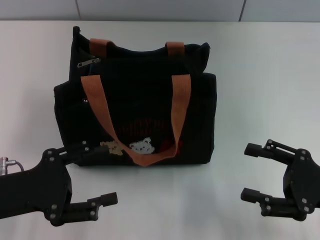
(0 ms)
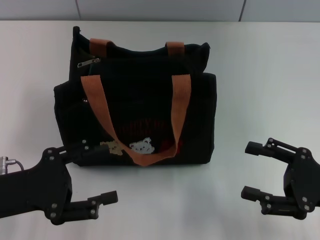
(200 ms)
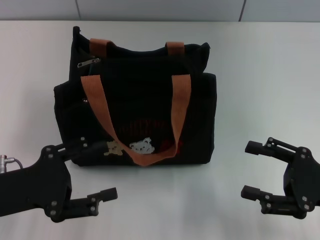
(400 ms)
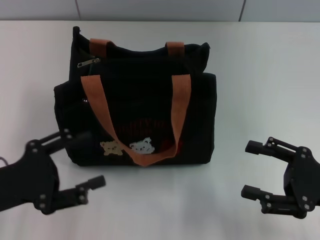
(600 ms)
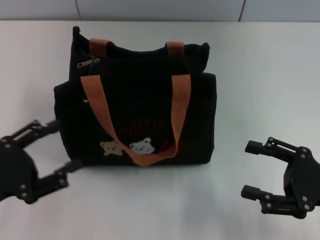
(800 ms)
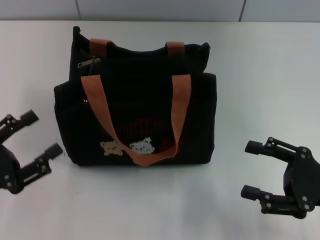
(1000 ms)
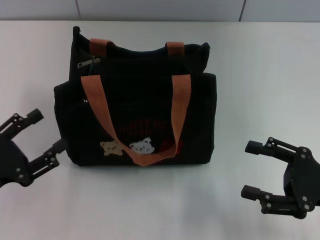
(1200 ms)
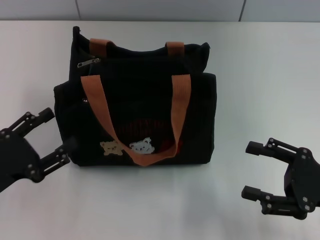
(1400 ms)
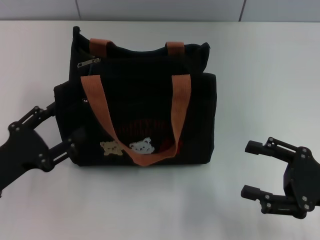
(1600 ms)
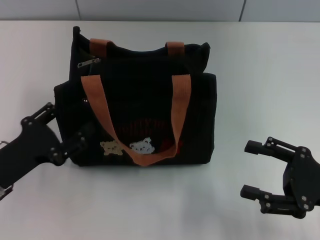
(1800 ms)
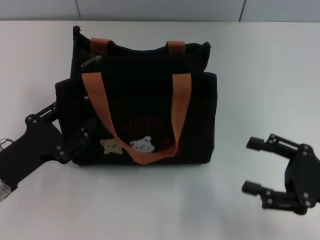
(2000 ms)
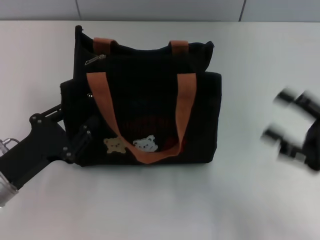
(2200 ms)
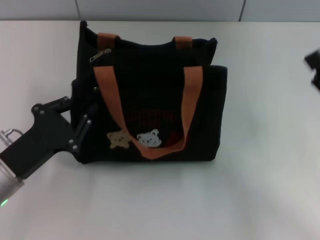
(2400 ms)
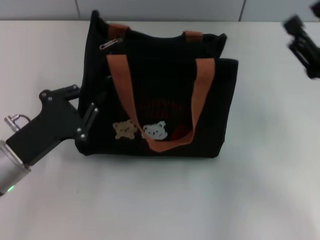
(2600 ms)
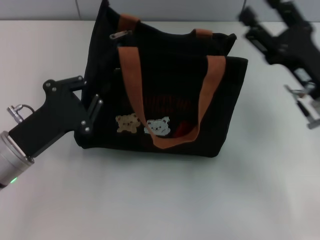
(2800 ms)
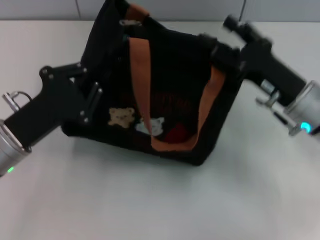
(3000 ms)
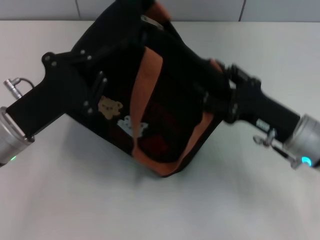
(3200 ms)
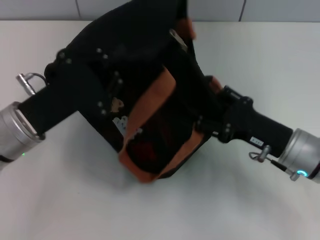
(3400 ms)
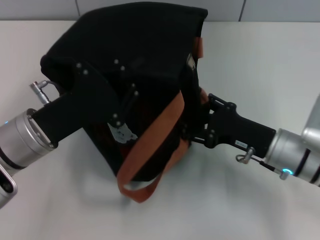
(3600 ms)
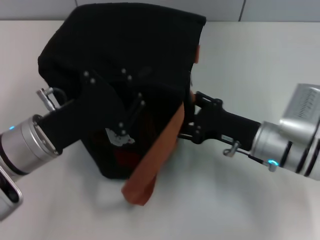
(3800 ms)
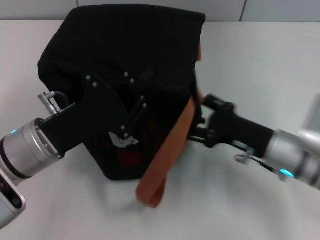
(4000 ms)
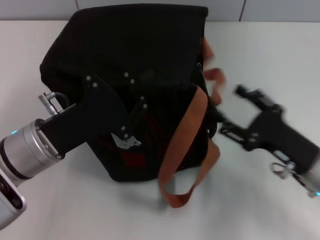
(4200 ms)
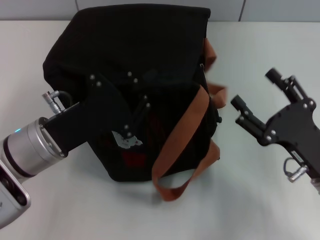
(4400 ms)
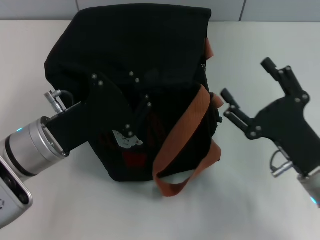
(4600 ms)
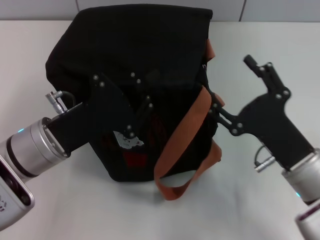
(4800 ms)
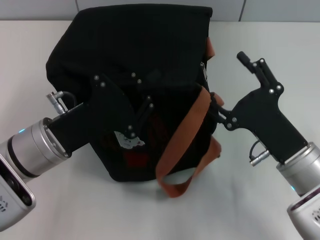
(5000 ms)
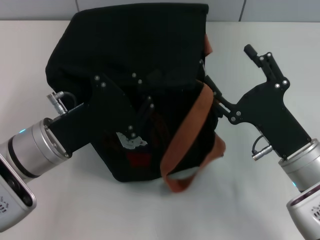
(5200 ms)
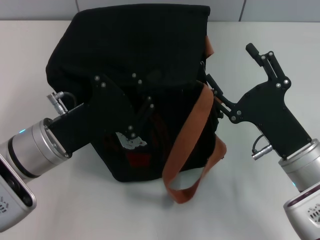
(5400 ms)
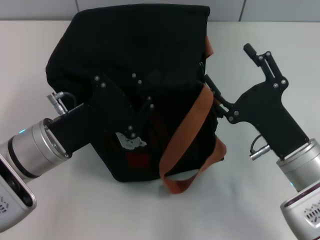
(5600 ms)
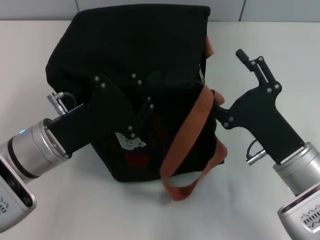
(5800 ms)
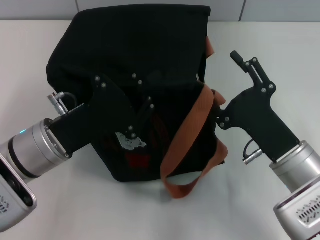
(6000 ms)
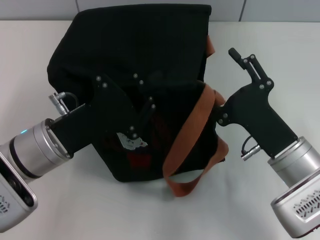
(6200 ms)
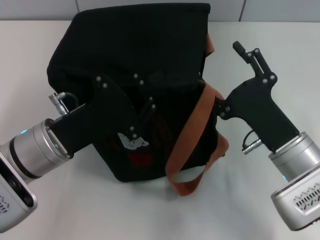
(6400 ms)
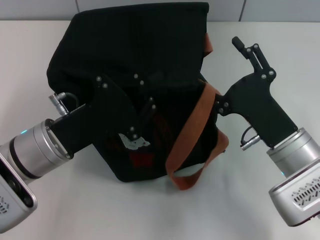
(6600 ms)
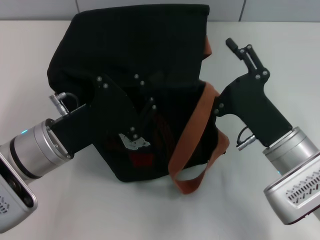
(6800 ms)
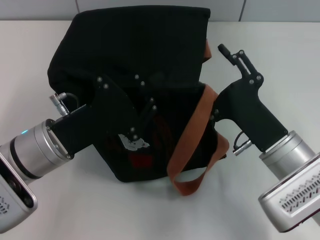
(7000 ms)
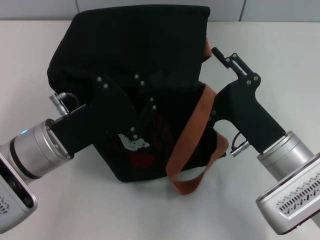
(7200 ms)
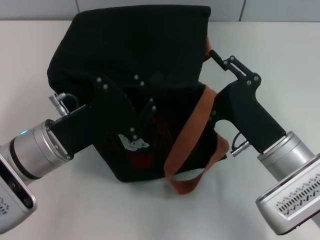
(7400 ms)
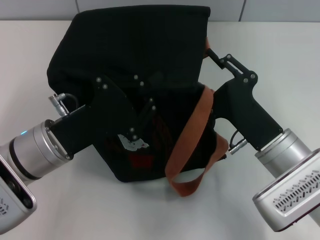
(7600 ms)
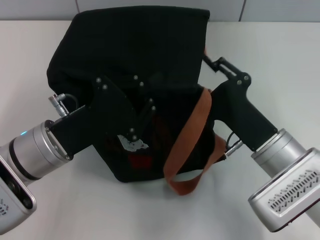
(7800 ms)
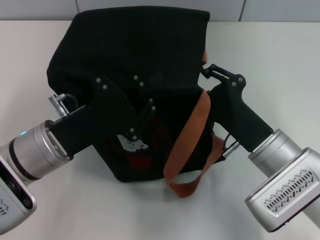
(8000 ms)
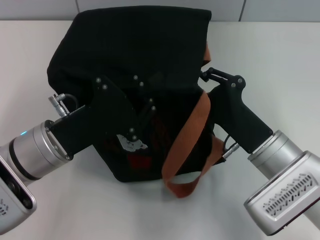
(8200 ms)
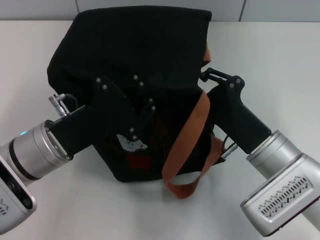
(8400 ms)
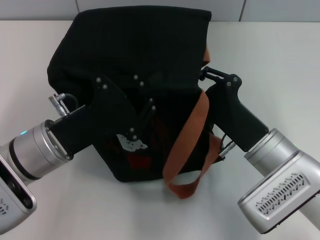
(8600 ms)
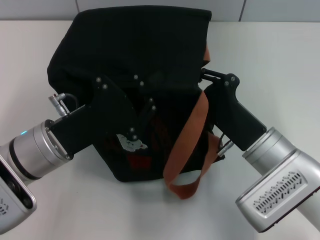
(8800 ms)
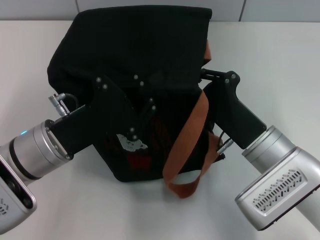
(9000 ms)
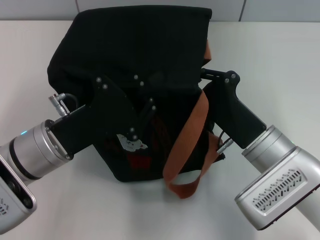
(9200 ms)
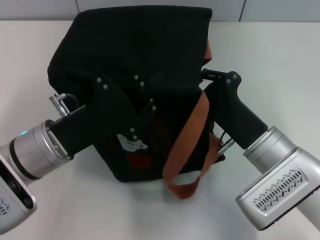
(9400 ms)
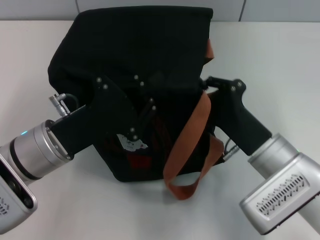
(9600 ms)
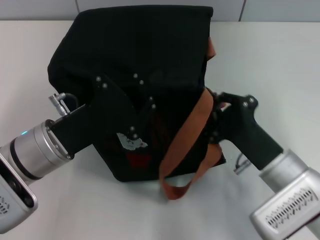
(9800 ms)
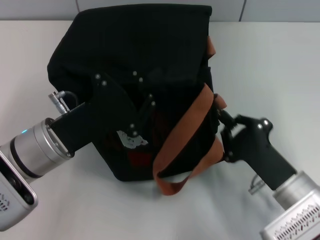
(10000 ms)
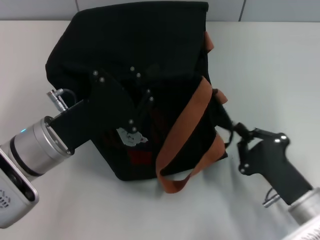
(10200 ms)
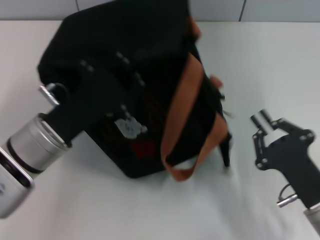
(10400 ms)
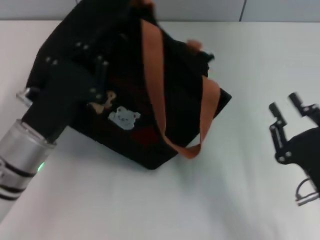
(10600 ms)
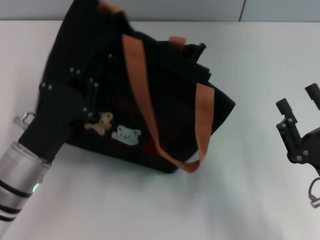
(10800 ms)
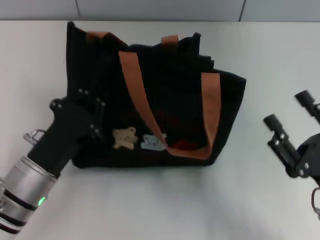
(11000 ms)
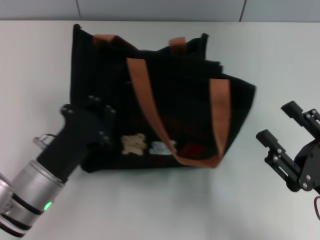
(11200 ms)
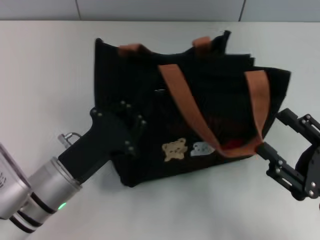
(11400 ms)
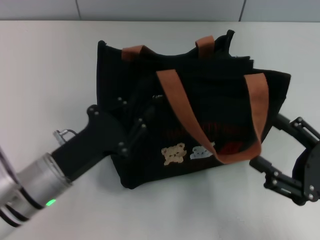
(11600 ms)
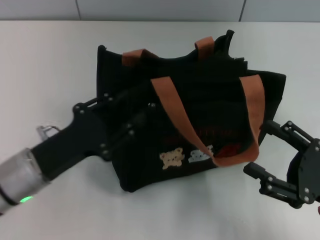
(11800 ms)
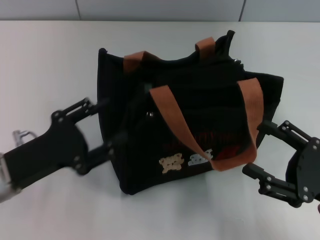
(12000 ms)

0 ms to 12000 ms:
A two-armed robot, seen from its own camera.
Step, 0 ms to 10400 ms: Pull open the zipper with your right hand.
Step, 10600 ms to 11800 ms: Grab the bag with your left hand.
1600 ms to 3000 ms: The right gripper moves forward and to the left, roughly 15 cm. The left gripper shifts some 10 cm to the right and forward, and closes its fingers.
3000 ms to 4400 ms: The right gripper travels backward by about 10 cm.
4400 ms to 6000 ms: The right gripper is displaced to the left by some 5 cm.
6000 ms to 7600 ms: The right gripper closes up.
7600 ms to 9000 ms: The right gripper closes its fingers.
9000 ms to 10400 ms: The right gripper shifts roughly 10 cm backward and to the right.
10400 ms to 12000 ms: The right gripper moves to the right, some 5 cm, and opens; the left gripper travels to the left by about 5 cm, and opens its fingers.

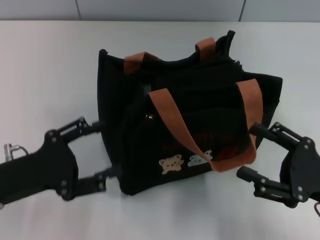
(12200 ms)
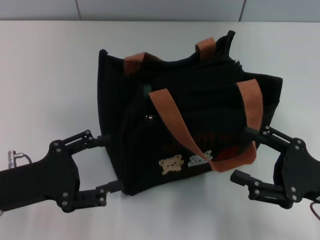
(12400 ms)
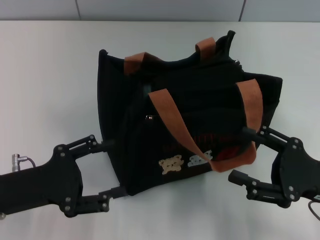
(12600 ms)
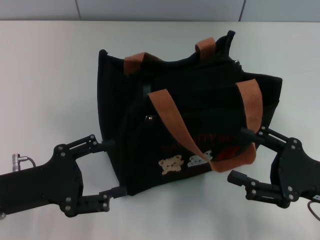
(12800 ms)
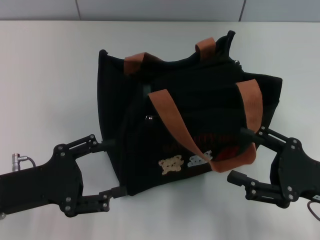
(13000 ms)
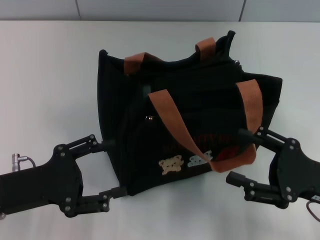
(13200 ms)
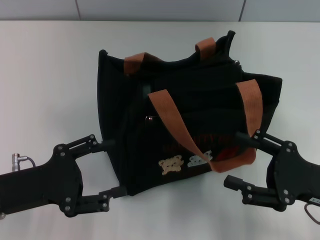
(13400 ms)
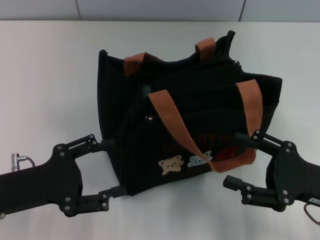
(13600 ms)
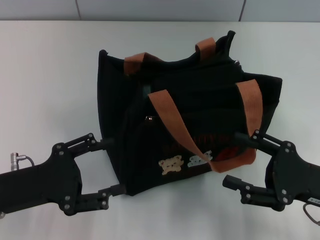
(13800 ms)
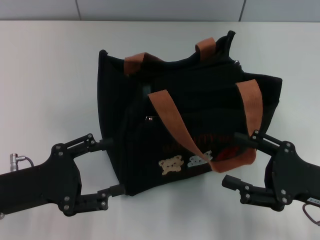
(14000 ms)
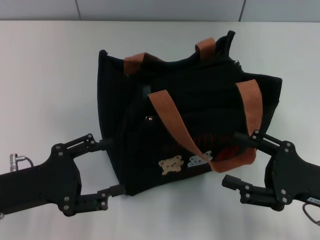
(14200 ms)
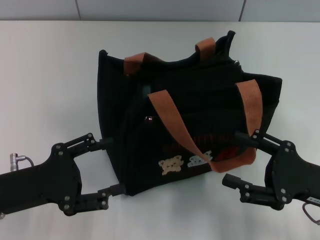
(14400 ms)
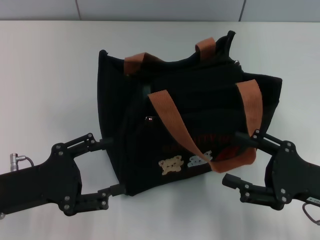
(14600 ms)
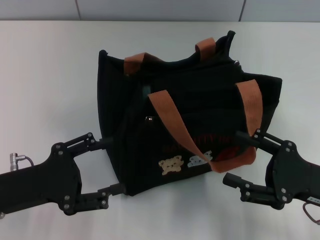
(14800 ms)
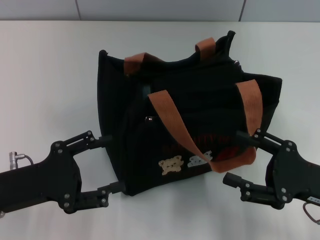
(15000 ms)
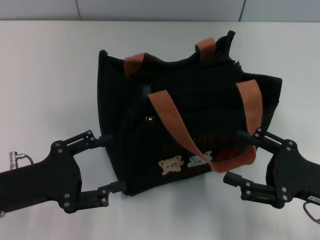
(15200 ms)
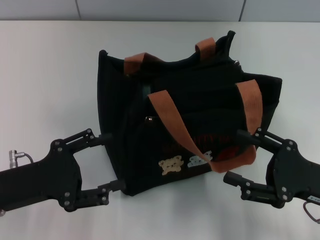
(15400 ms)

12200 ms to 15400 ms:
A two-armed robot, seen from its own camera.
12200 ms to 13800 ms: There are only small adjustments of the grippers.
13800 ms to 15400 ms: Neither gripper changes place.

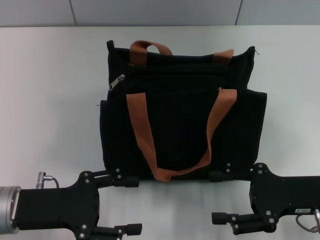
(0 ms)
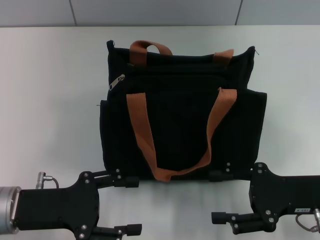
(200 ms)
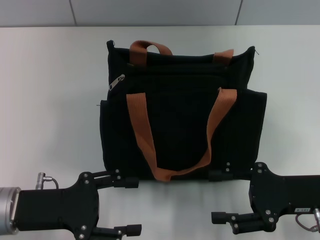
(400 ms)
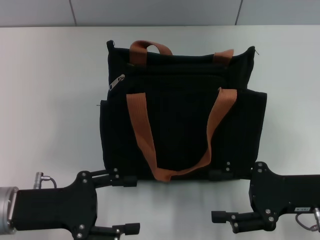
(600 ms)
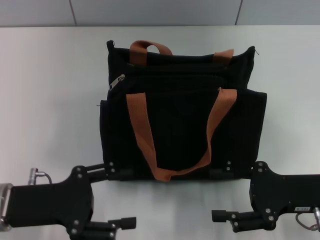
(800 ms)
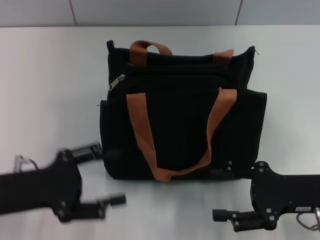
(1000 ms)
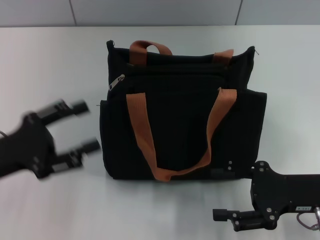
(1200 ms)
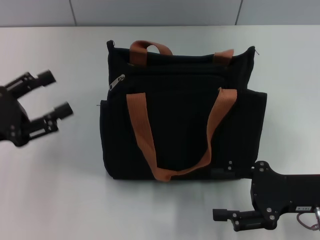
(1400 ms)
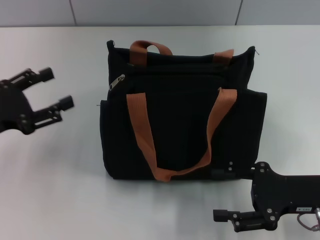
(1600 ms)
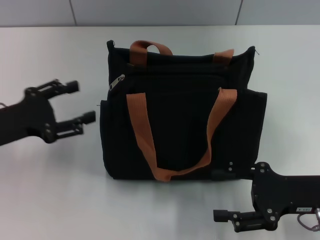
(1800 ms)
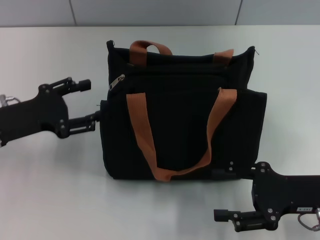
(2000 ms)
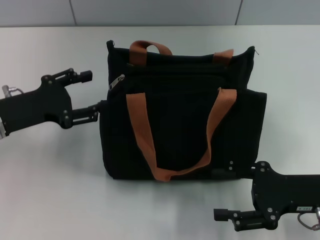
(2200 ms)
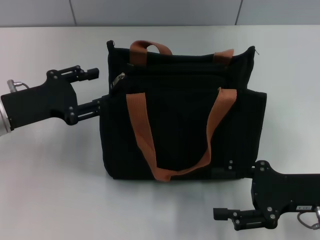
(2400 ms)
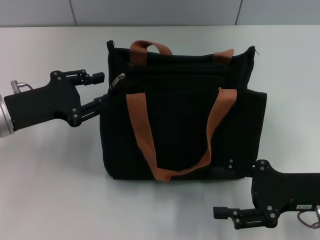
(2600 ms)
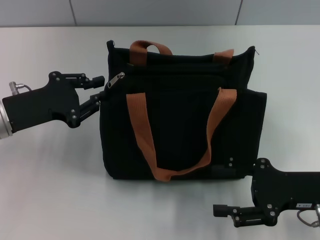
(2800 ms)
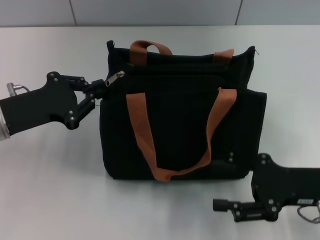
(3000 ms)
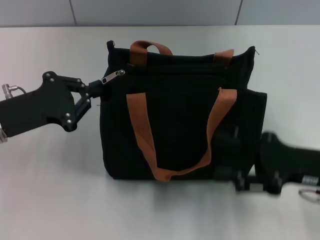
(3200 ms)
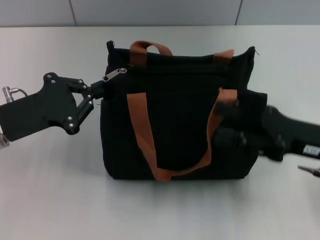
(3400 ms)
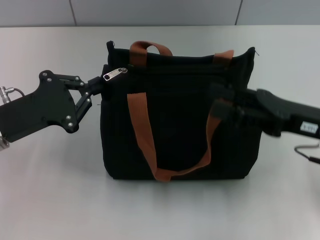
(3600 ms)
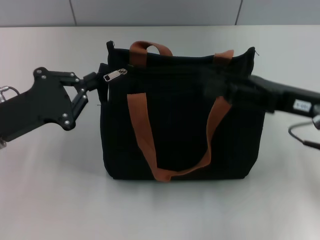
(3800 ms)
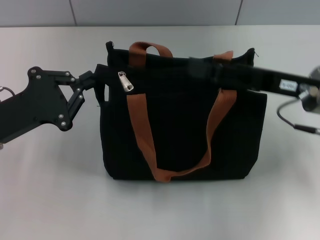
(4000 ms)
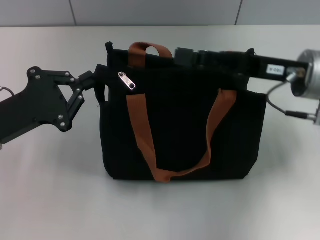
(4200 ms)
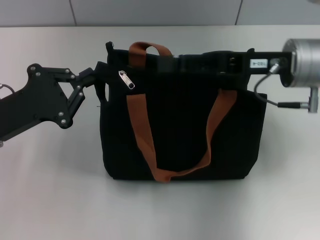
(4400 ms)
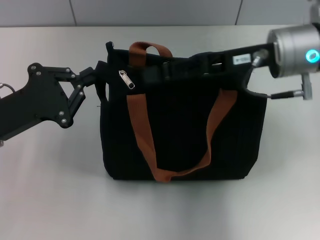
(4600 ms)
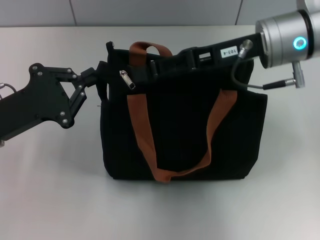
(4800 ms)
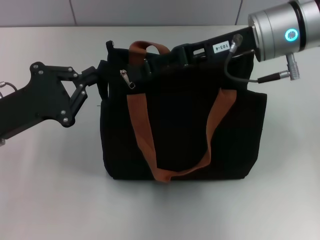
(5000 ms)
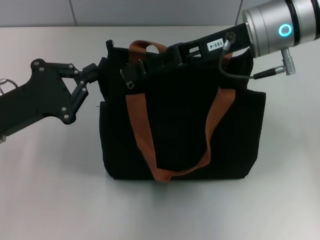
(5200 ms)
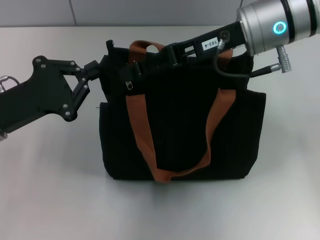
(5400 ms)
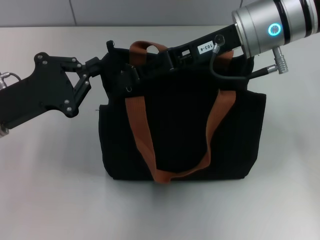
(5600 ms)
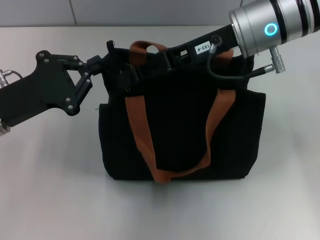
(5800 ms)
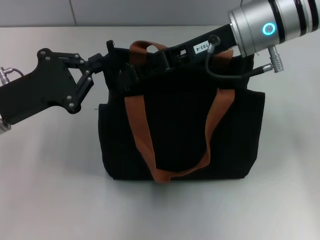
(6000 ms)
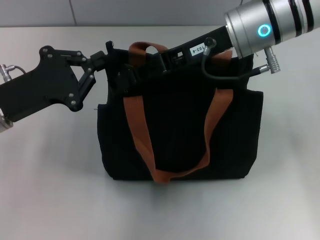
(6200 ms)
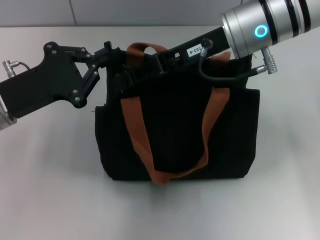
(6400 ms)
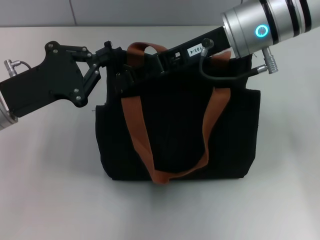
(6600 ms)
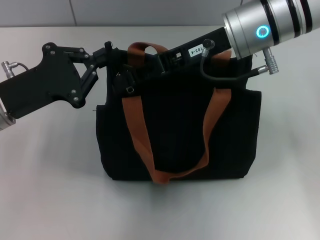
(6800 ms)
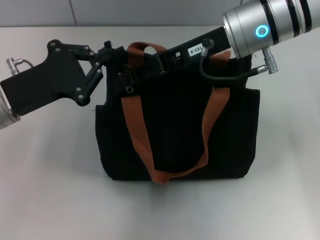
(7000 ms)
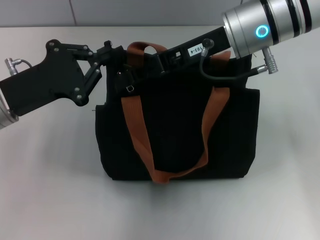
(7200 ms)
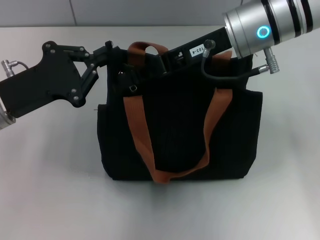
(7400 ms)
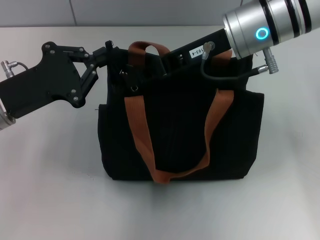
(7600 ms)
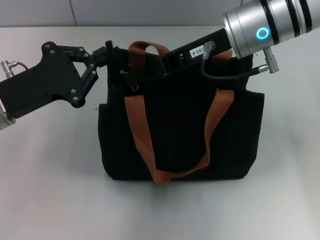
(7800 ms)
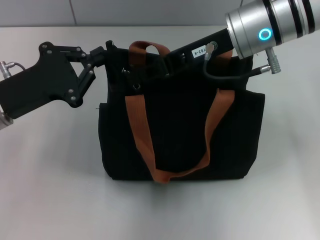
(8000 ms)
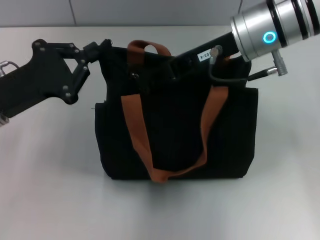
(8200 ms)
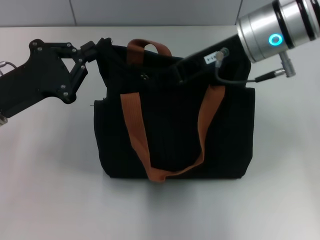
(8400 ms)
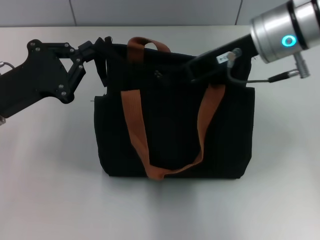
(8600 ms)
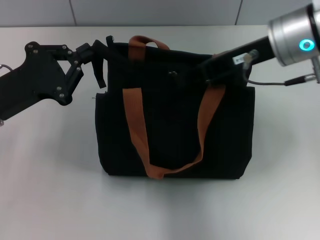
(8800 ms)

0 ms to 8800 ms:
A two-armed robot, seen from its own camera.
0 ms to 1400 ms: The left gripper shifts some 5 cm to the left.
1400 ms to 3000 ms: The left gripper moves forward, roughly 5 cm, and closes.
3000 ms to 4400 ms: The right gripper heads forward, upward and to the left, covering approximately 15 cm.
4400 ms to 5800 ms: The right gripper shifts about 5 cm to the left.
5800 ms to 7400 ms: The grippers stay close to where they were, moving slightly.
7400 ms to 8800 ms: The right gripper is displaced to the right by approximately 5 cm, and closes.
